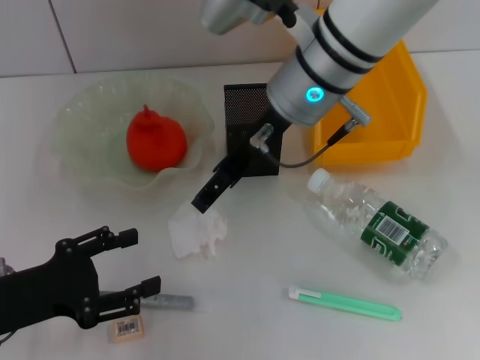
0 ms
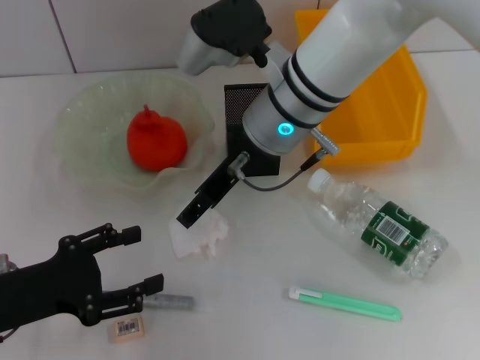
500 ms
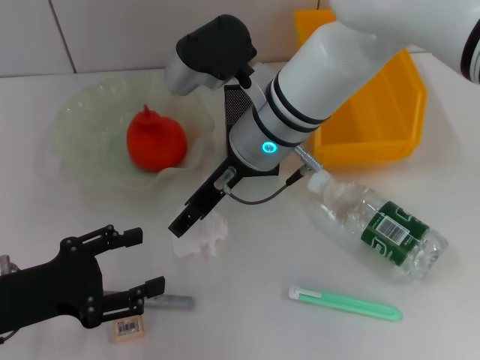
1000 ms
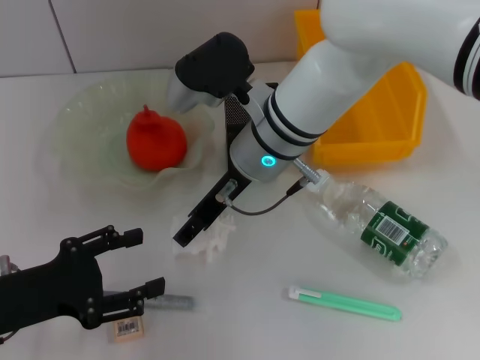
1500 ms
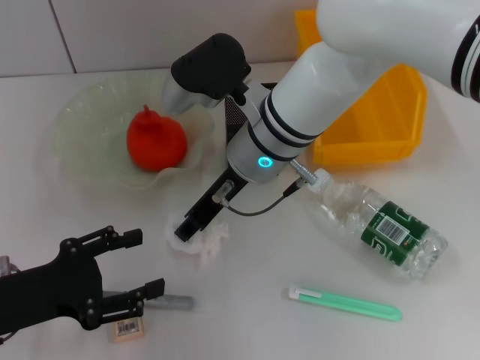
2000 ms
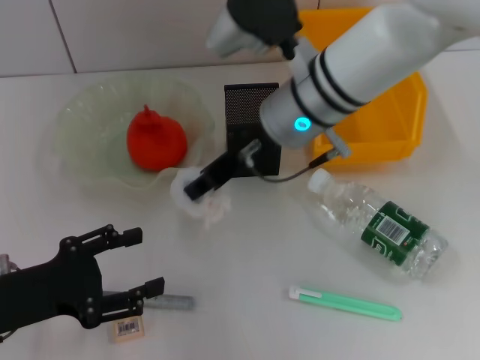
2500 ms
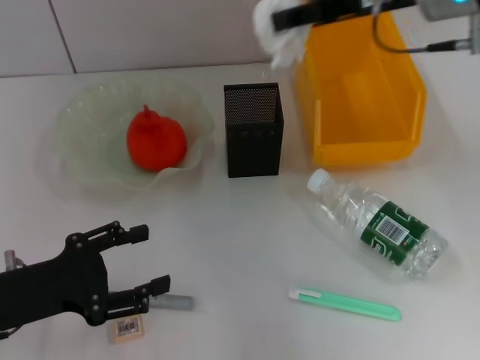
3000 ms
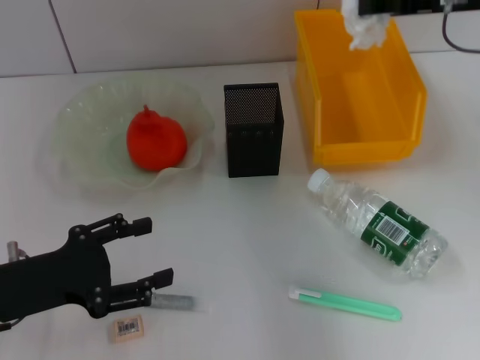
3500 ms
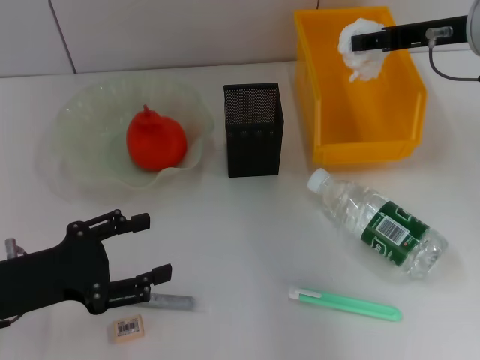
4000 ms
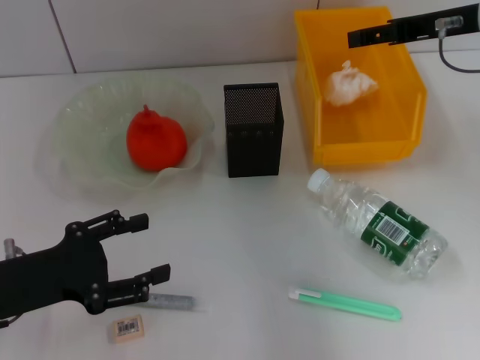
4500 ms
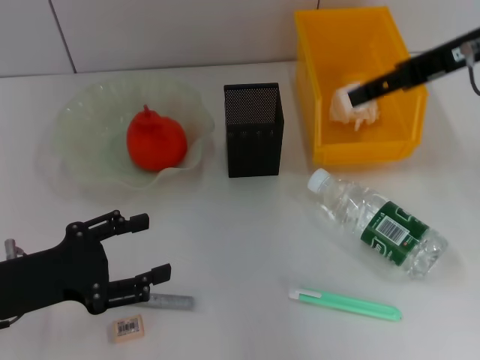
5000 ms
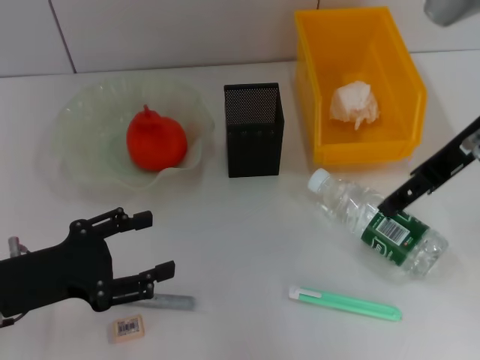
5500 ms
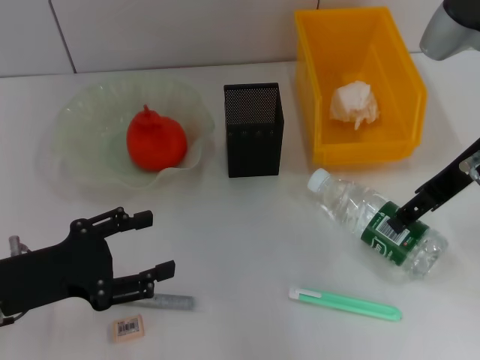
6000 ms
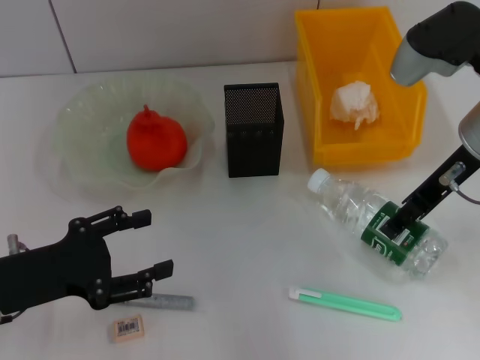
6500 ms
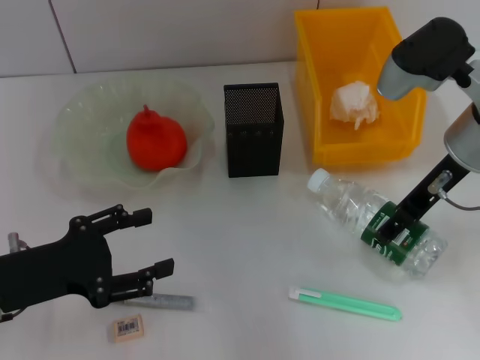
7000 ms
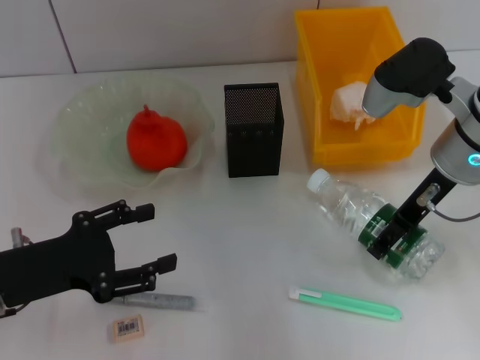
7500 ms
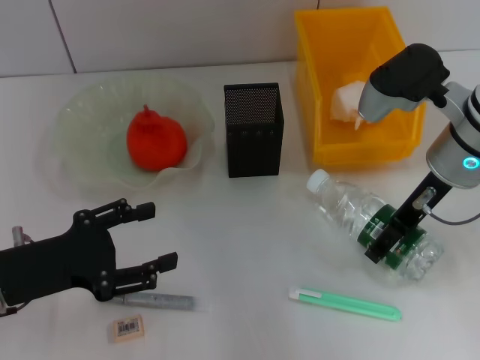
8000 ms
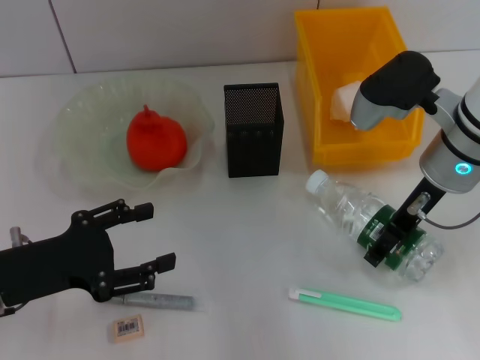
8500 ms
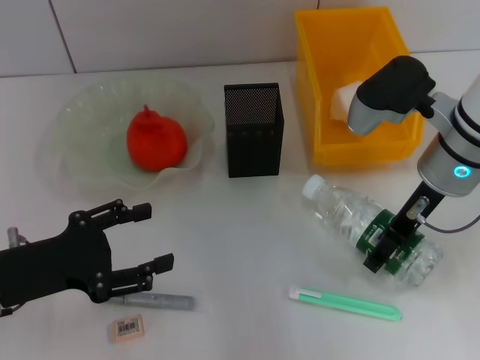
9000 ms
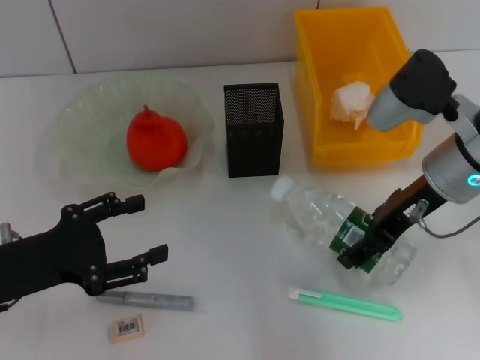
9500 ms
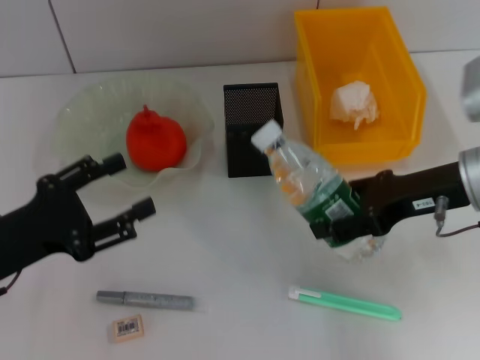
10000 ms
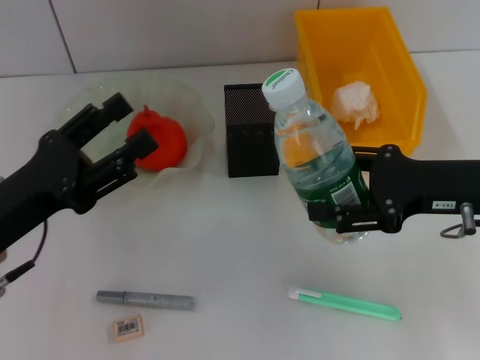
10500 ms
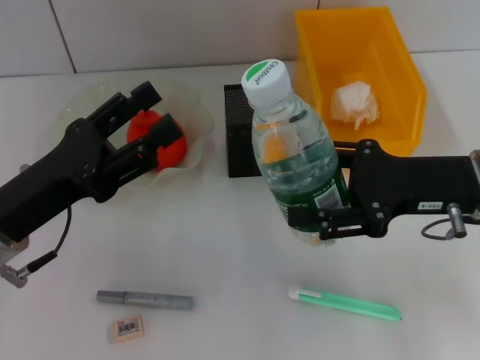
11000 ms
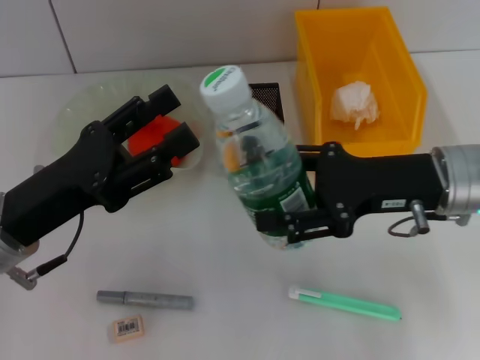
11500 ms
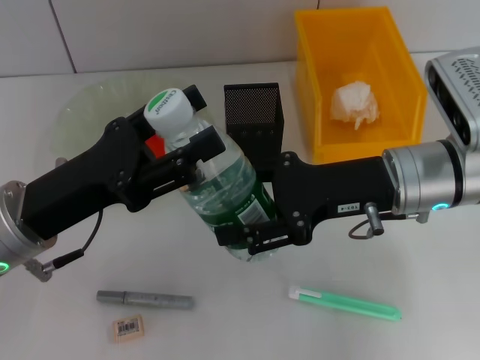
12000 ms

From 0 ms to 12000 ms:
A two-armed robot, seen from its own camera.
Step, from 2000 ms to 4000 ms: Place the paper ball into the trash can with the right hand.
Step, from 4500 ms to 9000 ms: Grab the water bottle with the right hand.
From 0 ms to 2000 ms: The right gripper moves downward, roughly 5 cm.
From 2000 ms to 4000 ms: The right gripper goes approximately 25 cm to the right.
From 4000 ms to 6000 ms: The right gripper heads backward, covering roughly 5 cm, and opens its fingers.
From 6000 ms to 8000 ms: The right gripper goes approximately 5 cm downward.
From 8000 ms to 10000 ms: The right gripper ends up some 5 cm from where it was.
From 10000 ms to 12000 ms: The right gripper shifts about 5 cm to the left. The left gripper travels to the right by about 5 cm.

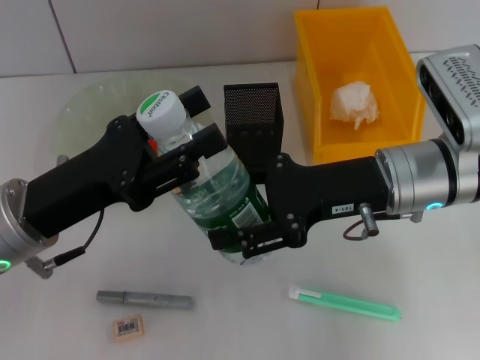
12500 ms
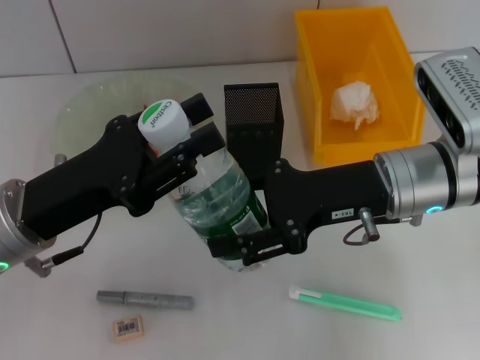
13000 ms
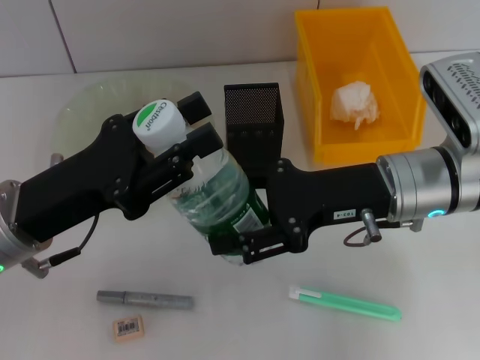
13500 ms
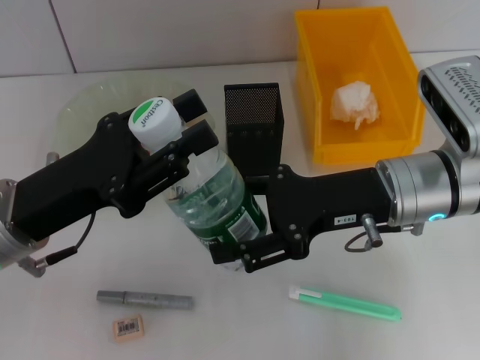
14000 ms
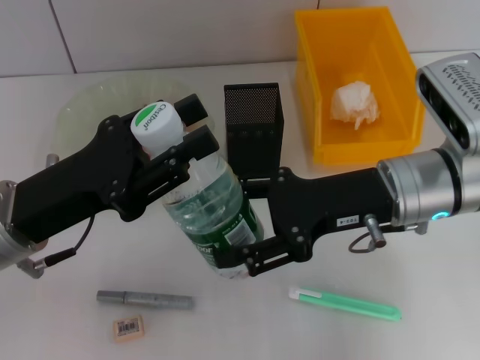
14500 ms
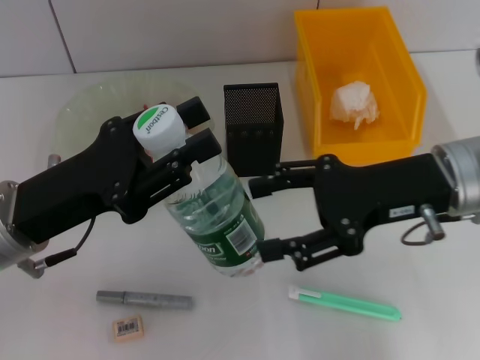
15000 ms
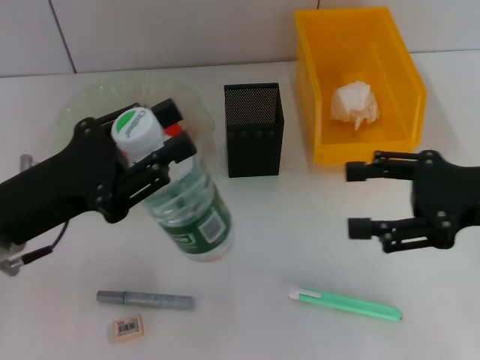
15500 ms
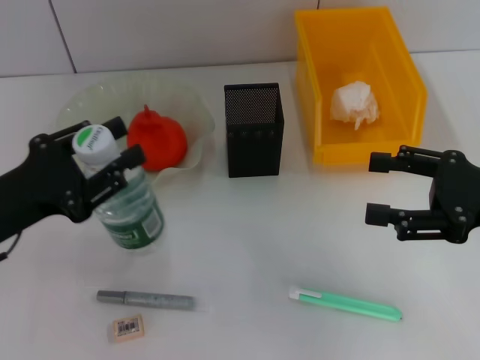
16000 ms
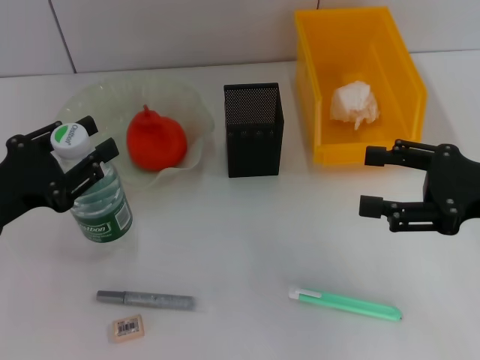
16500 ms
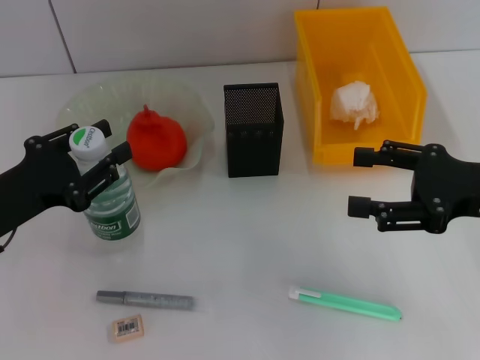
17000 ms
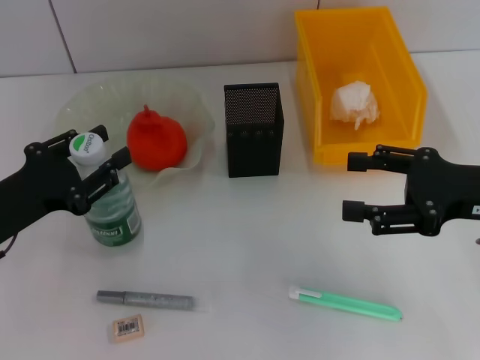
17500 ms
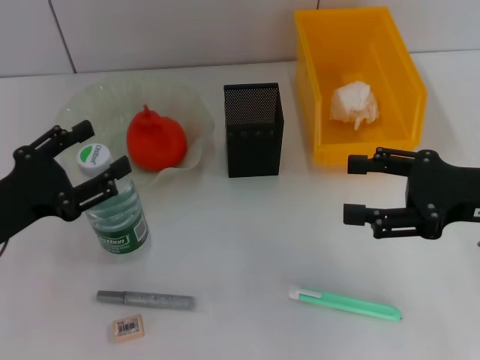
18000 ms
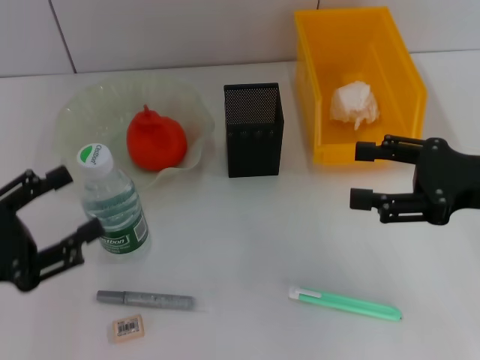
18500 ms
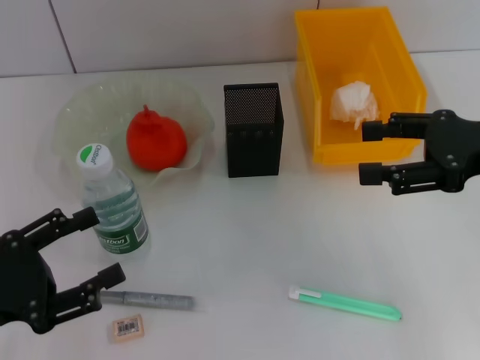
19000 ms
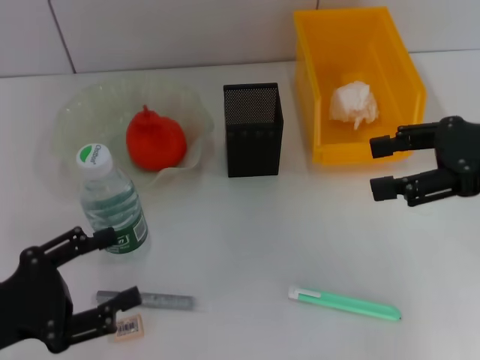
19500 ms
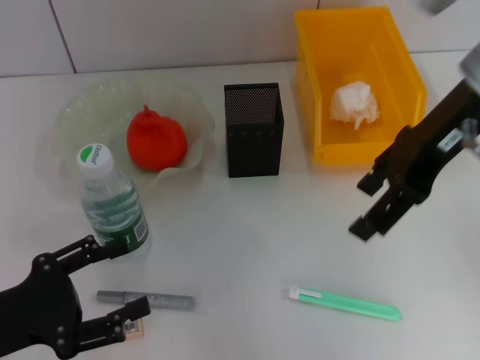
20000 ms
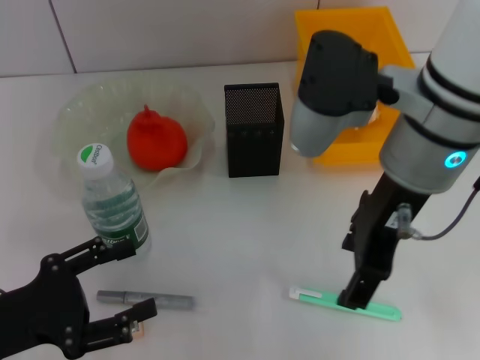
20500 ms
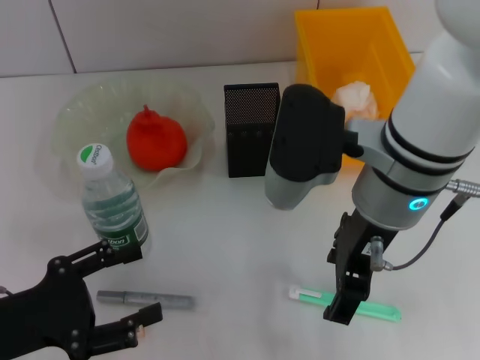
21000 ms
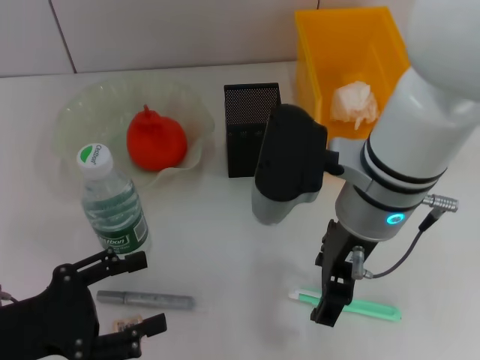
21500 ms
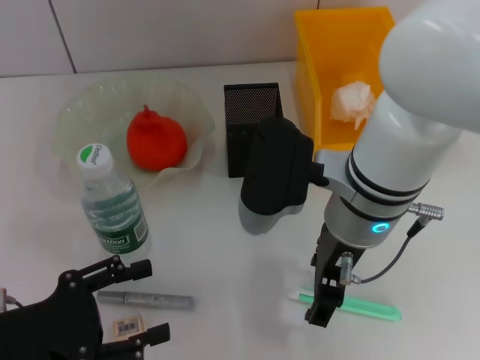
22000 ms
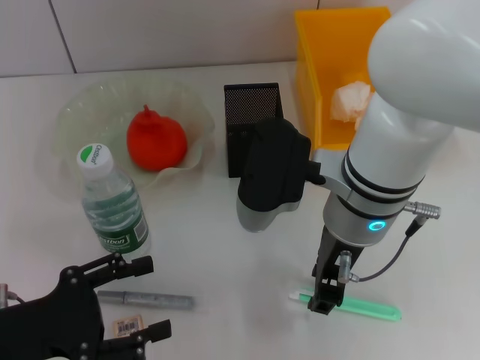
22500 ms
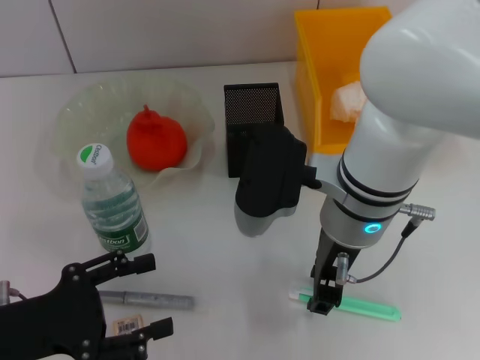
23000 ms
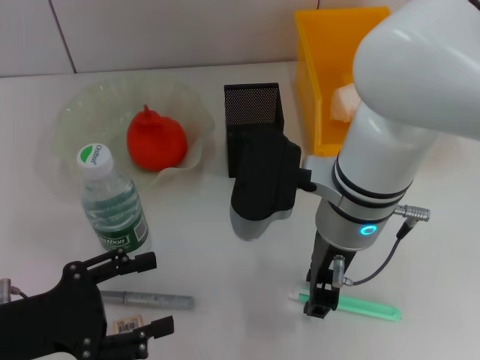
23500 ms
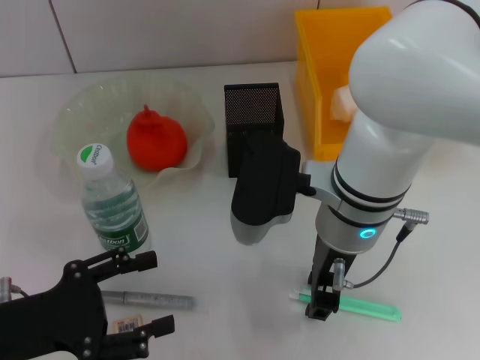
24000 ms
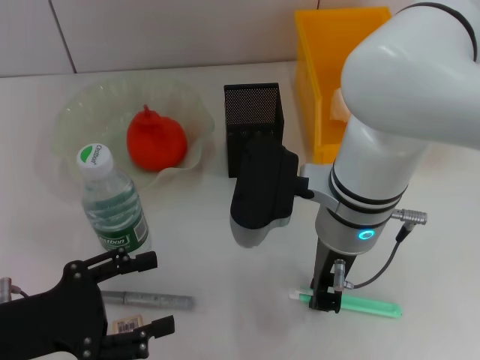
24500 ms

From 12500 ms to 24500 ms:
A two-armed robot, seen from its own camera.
Step, from 12500 ms to 14500 ms: Pass the water bottle from the right hand to the left hand.
Step, from 15000 ms to 17500 ms: Place the water bottle on the table with the left hand.
Step, from 18500 ms to 24000 ms: Grab the blue utility knife with the right hand.
From 12500 ms to 14500 ms: The left gripper closes its fingers.
From 14500 ms to 16500 ms: The left gripper goes roughly 10 cm to the left. Meanwhile the right gripper goes approximately 15 cm to the right.
From 16500 ms to 18500 ms: The left gripper heads backward, covering some 5 cm, and opens.
From 18500 ms to 20500 ms: The right gripper is displaced to the left and upward by approximately 20 cm.
From 20500 ms to 22500 ms: The right gripper moves downward, roughly 5 cm.
From 22500 ms to 24500 ms: The right gripper closes.

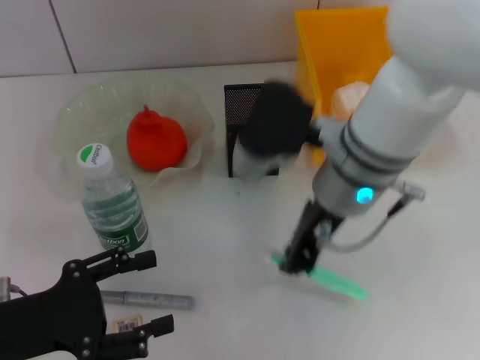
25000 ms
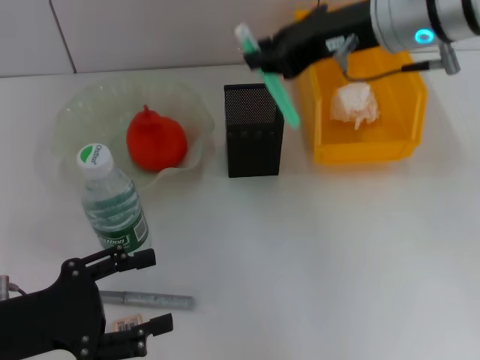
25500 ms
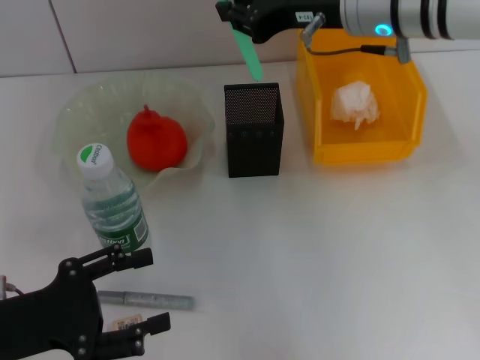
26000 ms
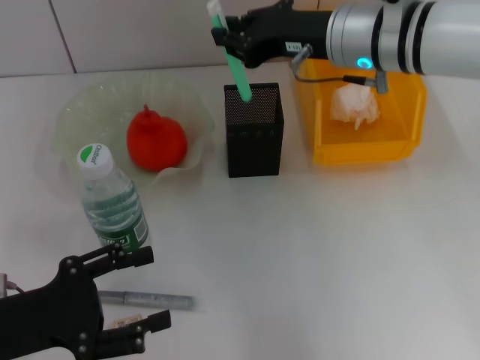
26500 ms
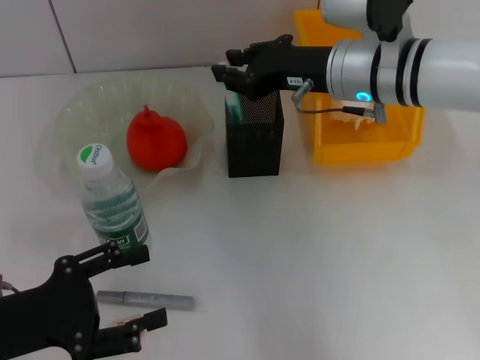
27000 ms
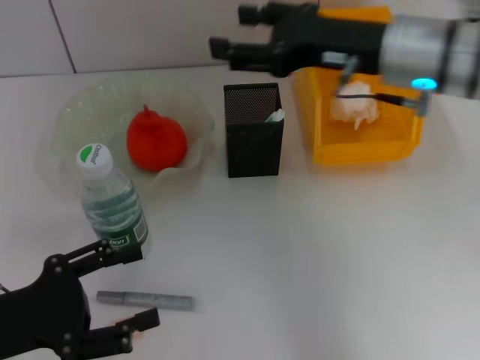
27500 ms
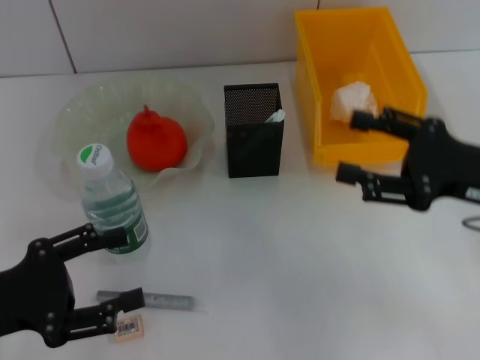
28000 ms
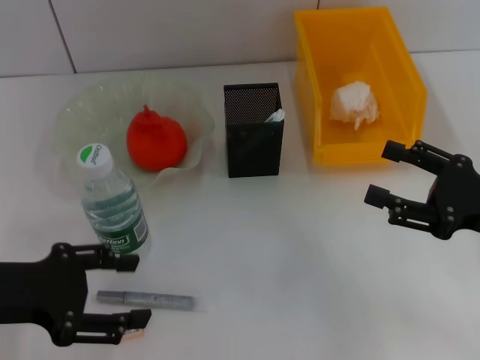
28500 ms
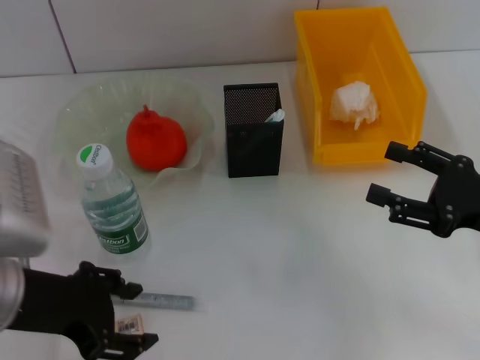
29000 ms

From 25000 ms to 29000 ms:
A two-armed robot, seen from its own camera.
Step, from 25000 ms to 27000 ms: Place the blue utility knife into the pen holder with the right hand.
From 25000 ms to 27000 ms: The right gripper travels forward and to the right by approximately 10 cm, and travels upward and back again, roughly 10 cm each way.
From 27000 ms to 29000 ms: The right gripper shifts some 25 cm to the right, backward and downward, and opens up; the left gripper moves upward and to the right, roughly 10 cm.
